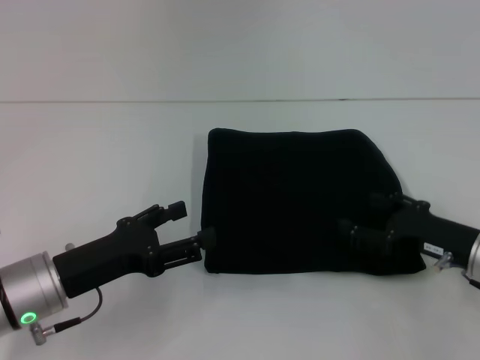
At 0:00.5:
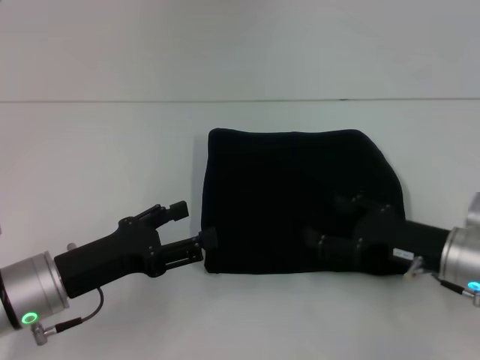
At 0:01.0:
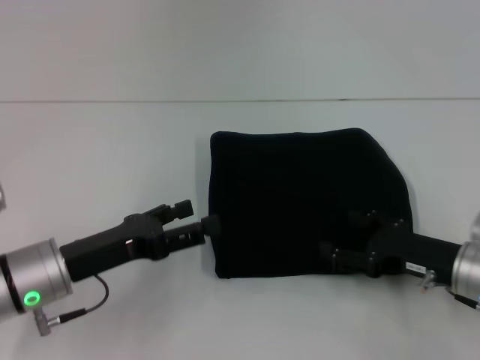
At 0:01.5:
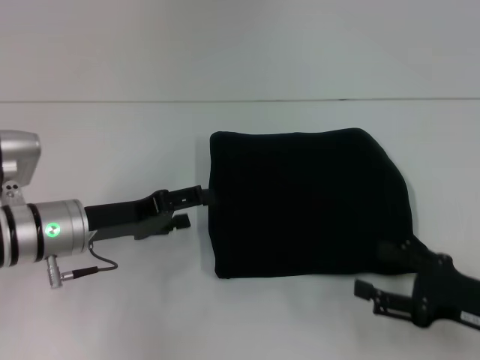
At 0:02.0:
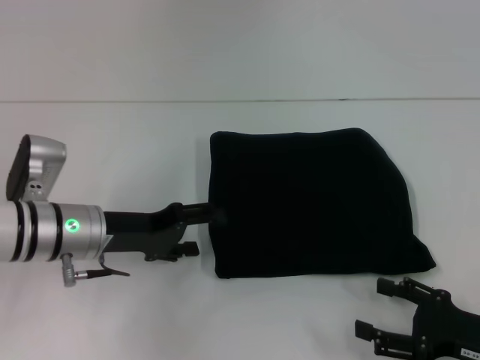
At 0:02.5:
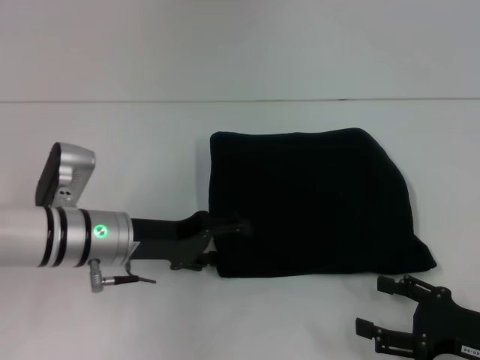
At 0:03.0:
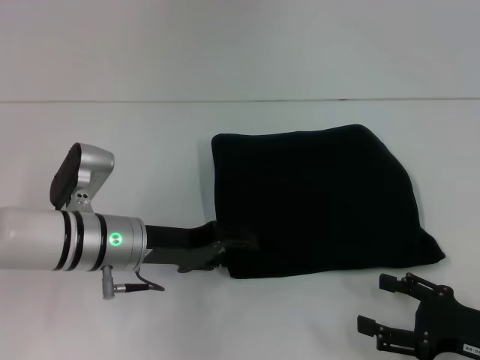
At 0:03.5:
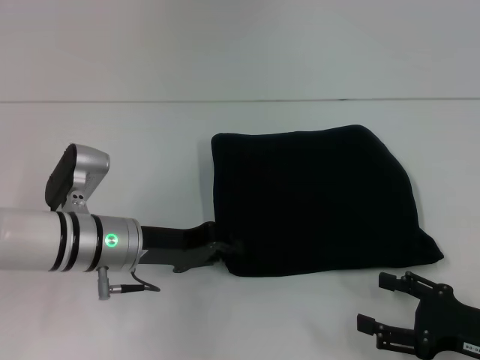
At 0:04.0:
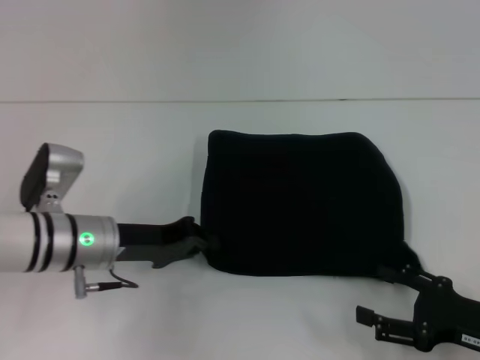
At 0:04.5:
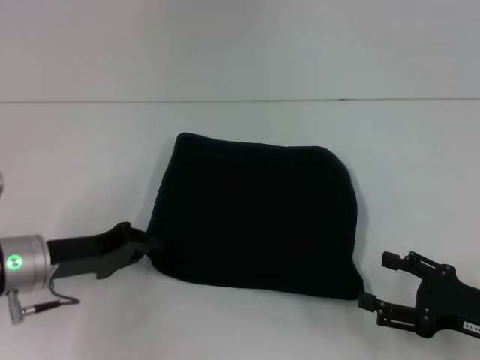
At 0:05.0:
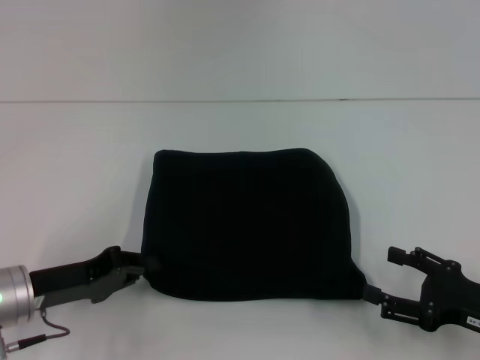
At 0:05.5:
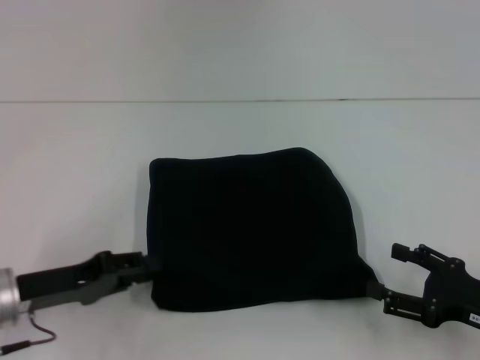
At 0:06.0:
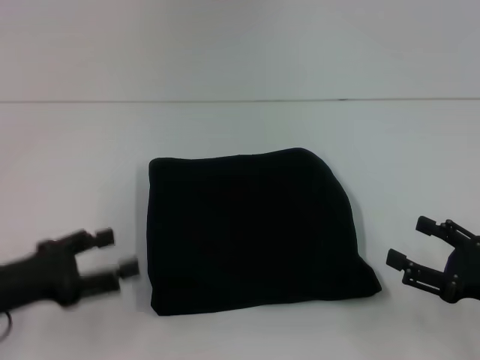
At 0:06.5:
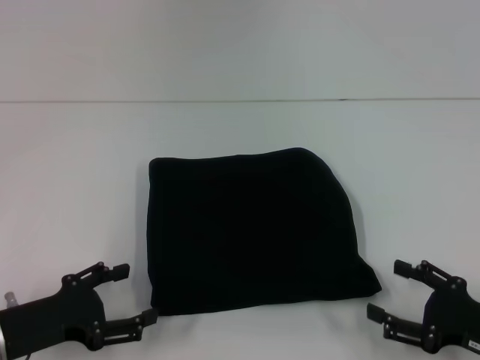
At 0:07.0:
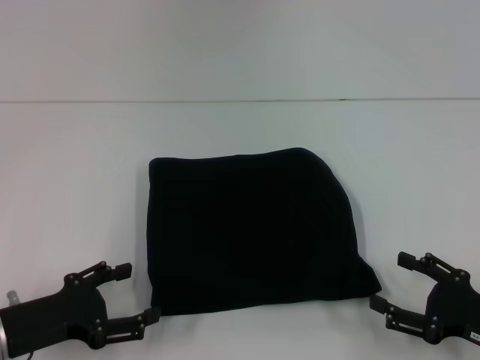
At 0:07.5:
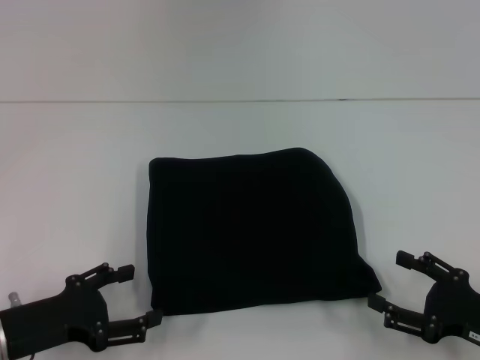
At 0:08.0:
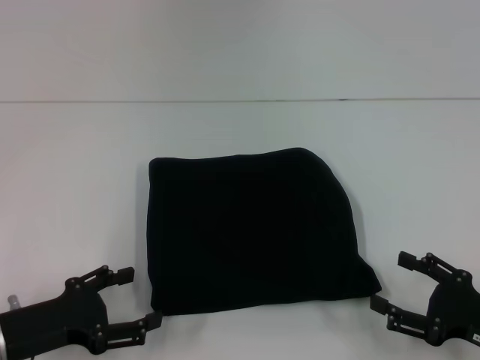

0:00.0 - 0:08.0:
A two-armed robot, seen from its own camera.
0:00.0 - 0:02.0: The right gripper travels backward by approximately 10 cm. Meanwhile the left gripper heads forward, covering roughly 10 cm.
0:02.0 - 0:04.0: The left gripper closes up.
0:04.0 - 0:06.0: The left gripper goes roughly 15 cm to the left and backward, and opens.
0:06.0 - 0:08.0: The left gripper shifts by about 5 cm, and opens.

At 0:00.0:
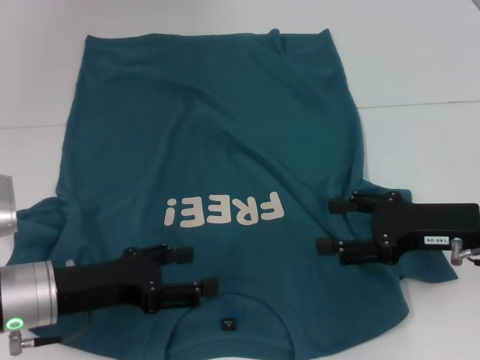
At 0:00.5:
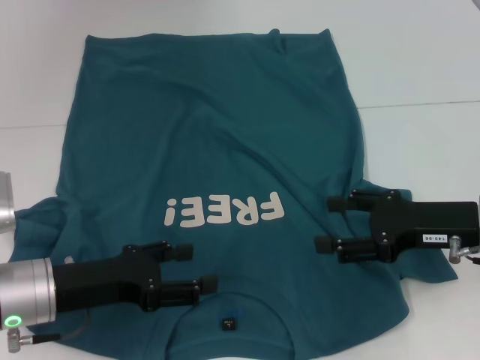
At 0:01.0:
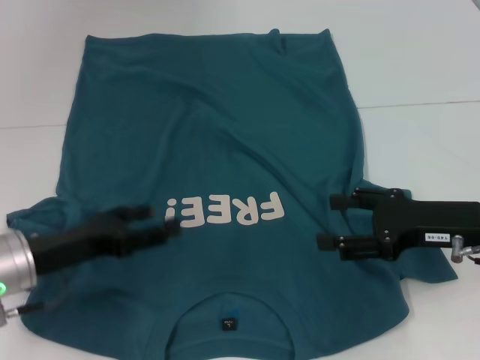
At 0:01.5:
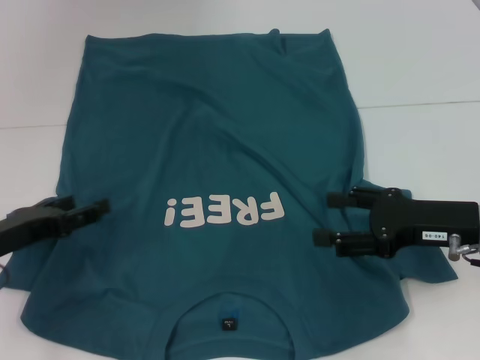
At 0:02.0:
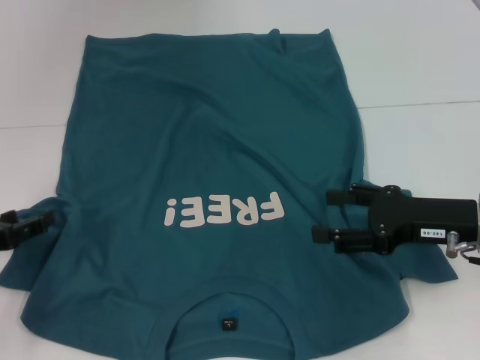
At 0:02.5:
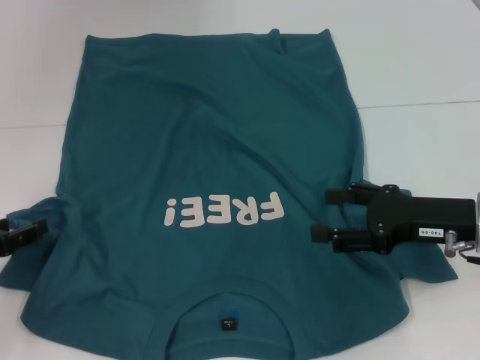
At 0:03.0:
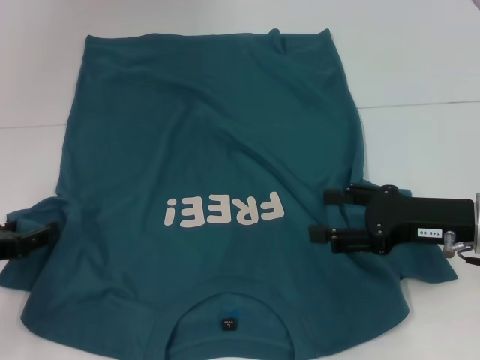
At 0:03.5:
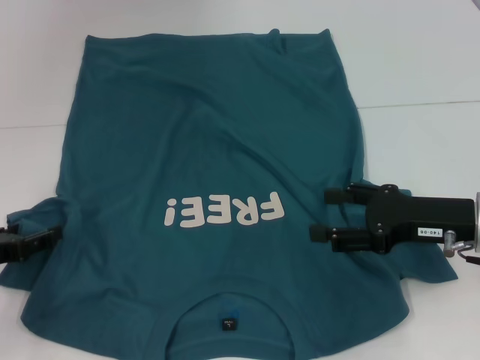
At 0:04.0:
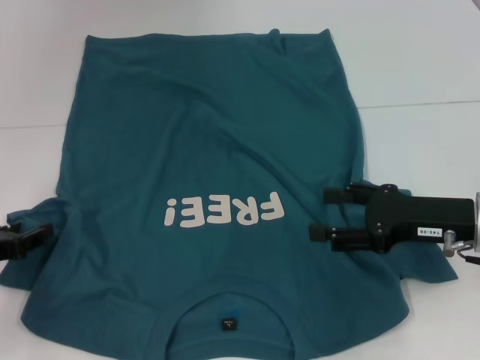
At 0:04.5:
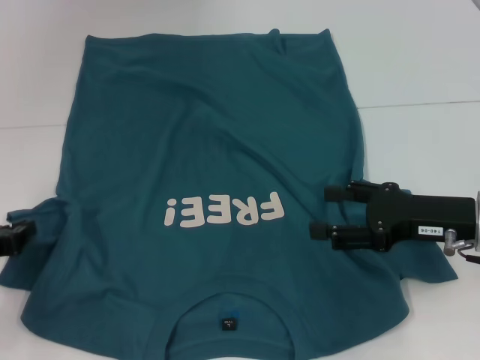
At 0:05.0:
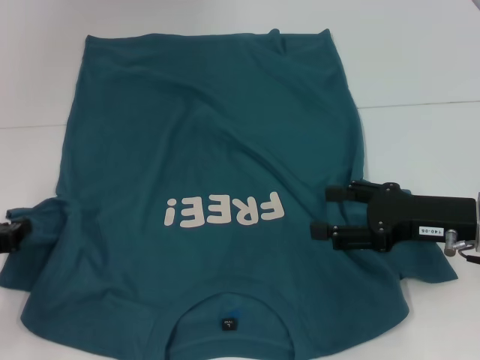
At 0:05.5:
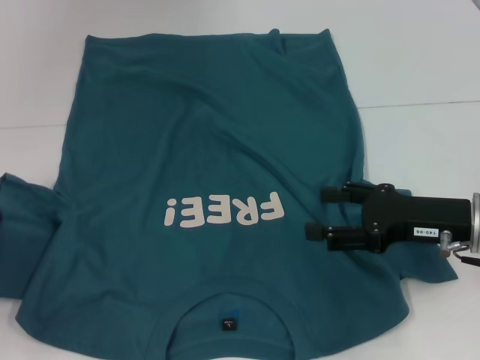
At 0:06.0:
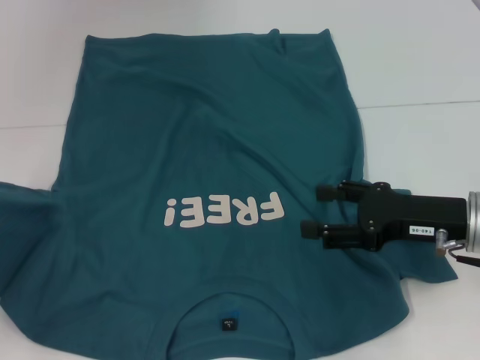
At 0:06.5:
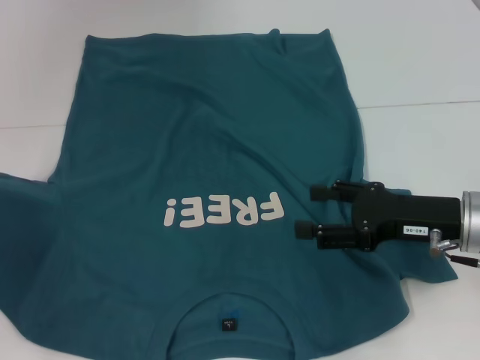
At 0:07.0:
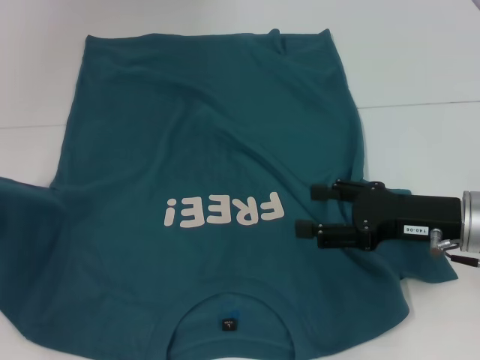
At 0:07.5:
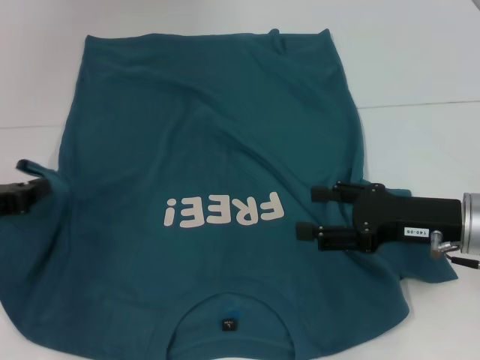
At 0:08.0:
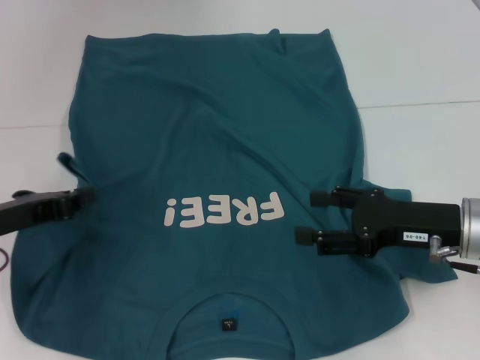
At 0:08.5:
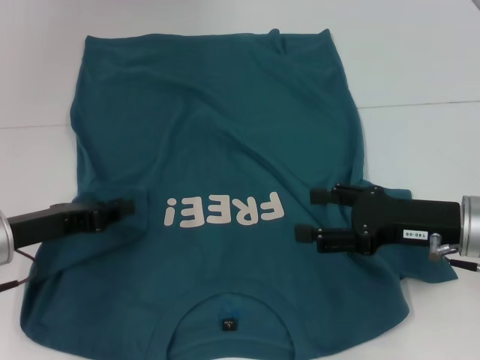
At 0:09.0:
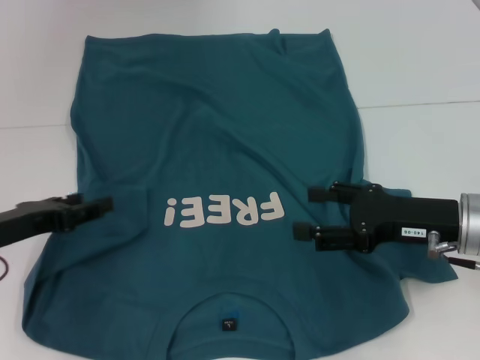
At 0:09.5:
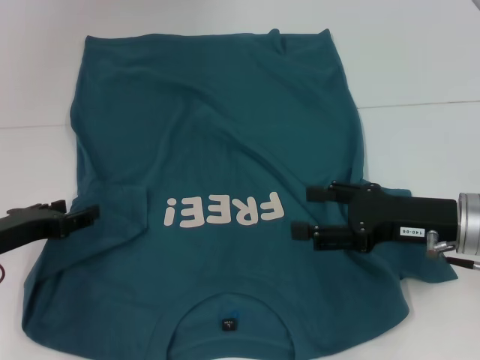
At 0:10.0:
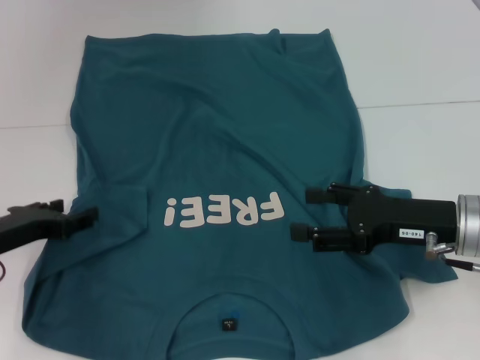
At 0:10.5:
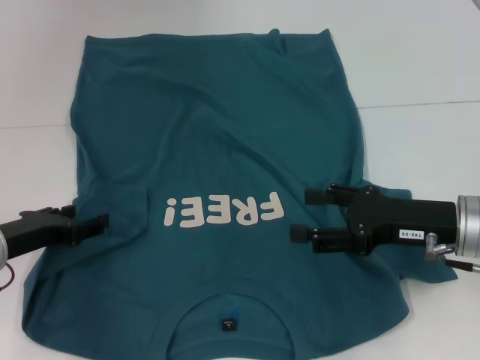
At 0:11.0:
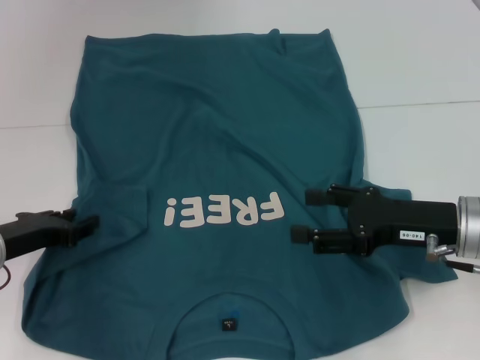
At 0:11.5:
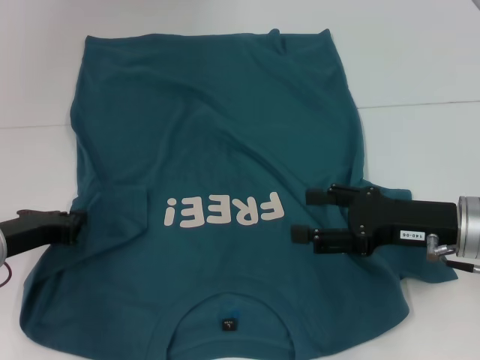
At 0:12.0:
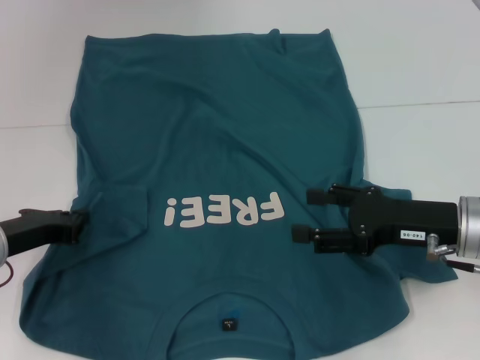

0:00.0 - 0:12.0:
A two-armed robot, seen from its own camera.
0:00.0 - 0:02.0: The left gripper goes some 10 cm to the left.
0:02.0 - 0:04.0: The grippers stay close to where they were, moving slightly.
0:04.0 - 0:06.0: The left gripper closes.
0:06.0 - 0:08.0: The left gripper travels to the right by some 10 cm.
0:08.0 - 0:10.0: The left gripper opens up.
0:10.0 - 0:12.0: The left gripper closes up.

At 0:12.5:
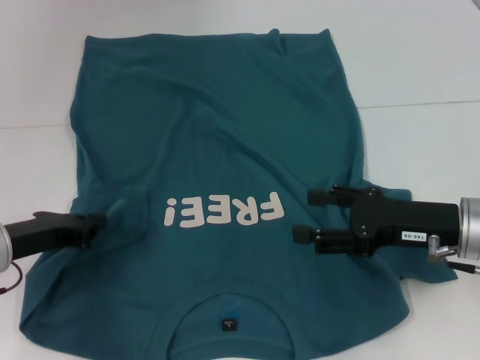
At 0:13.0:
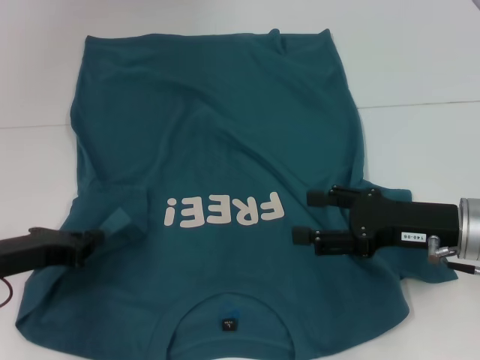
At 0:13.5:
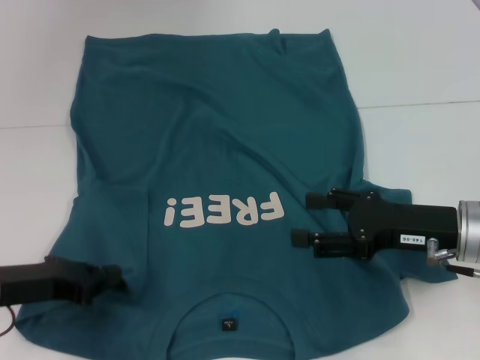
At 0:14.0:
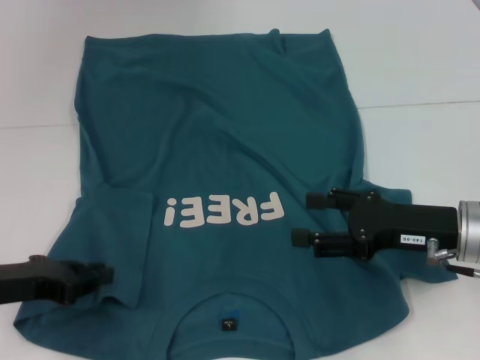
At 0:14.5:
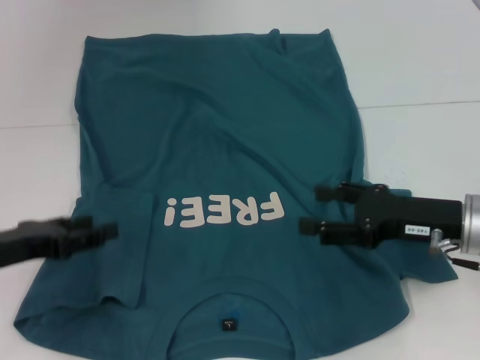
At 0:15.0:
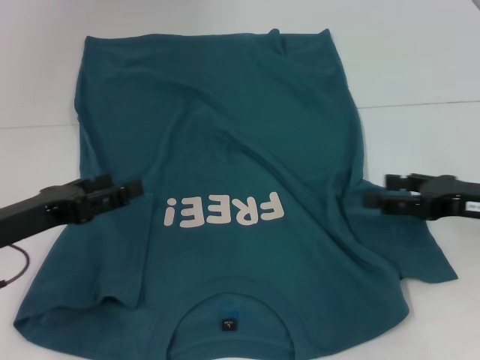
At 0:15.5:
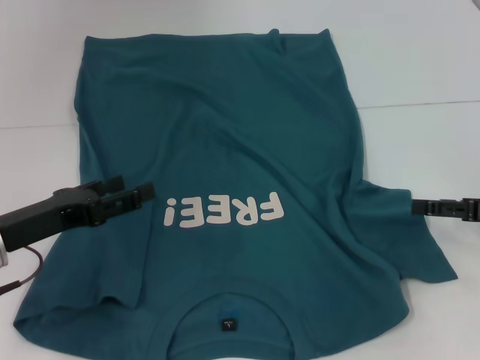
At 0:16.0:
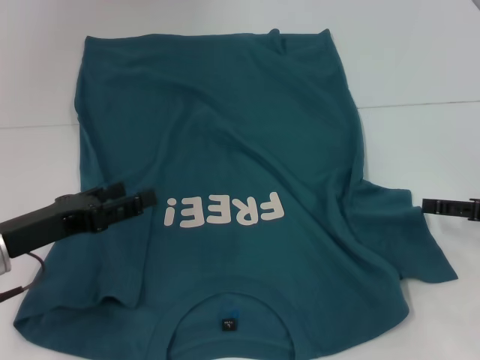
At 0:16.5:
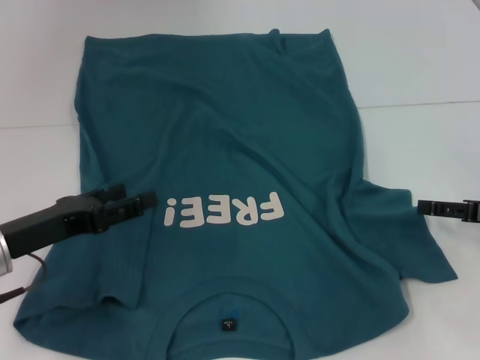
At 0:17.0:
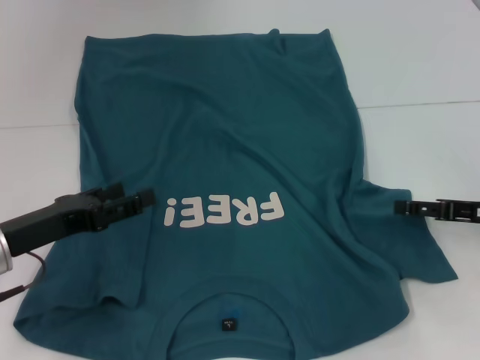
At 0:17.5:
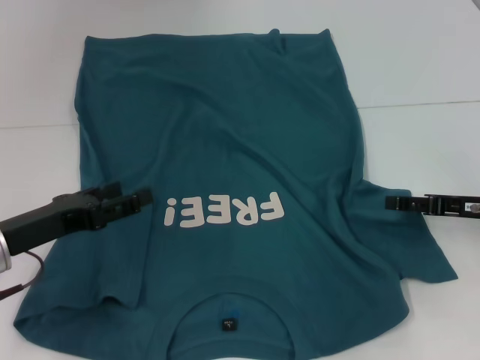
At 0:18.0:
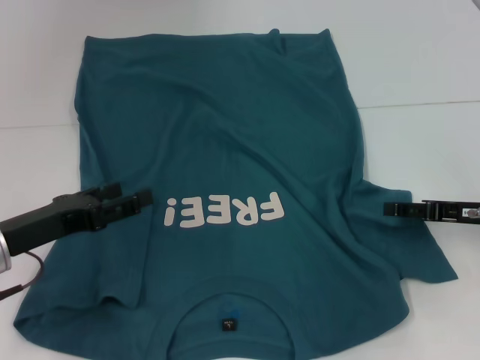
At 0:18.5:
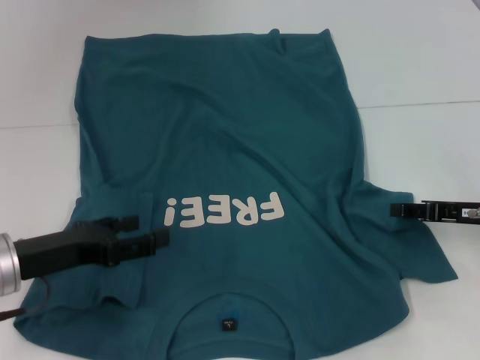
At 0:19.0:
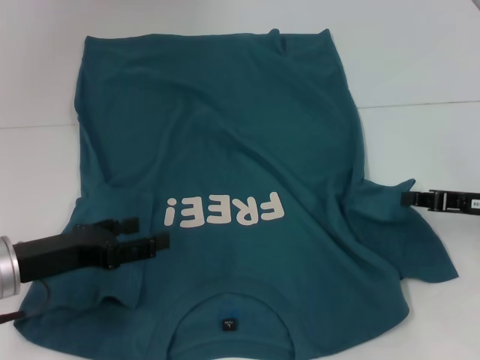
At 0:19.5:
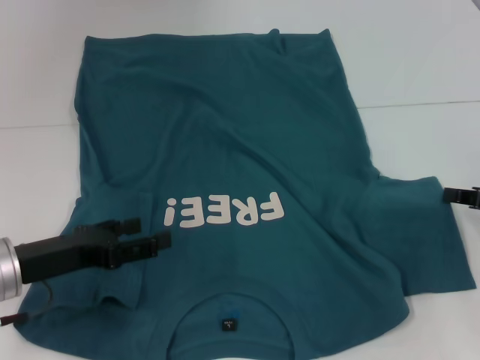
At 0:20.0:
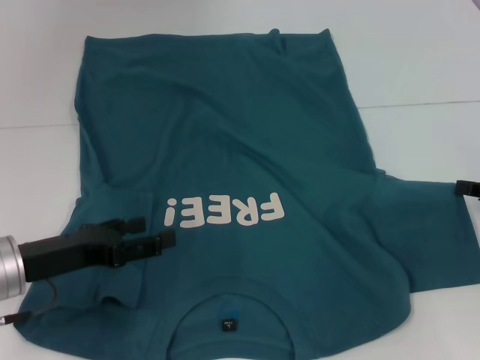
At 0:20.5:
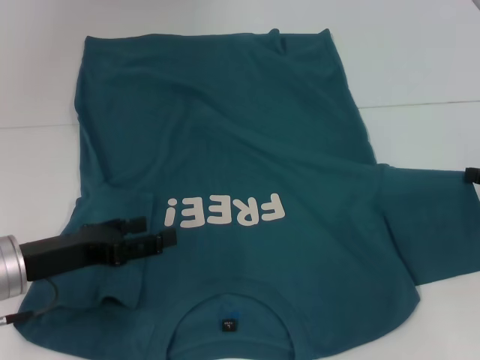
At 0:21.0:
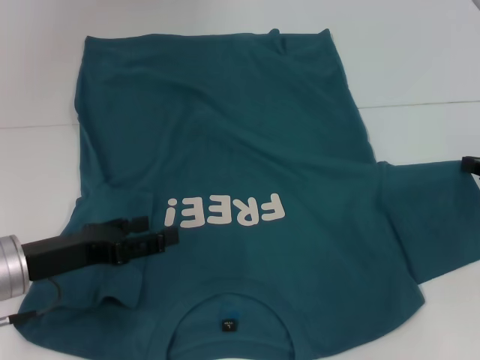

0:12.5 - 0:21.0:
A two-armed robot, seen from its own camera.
0:12.5 - 0:14.5: The left gripper opens up.
0:14.5 - 0:16.5: The right gripper heads to the right, covering roughly 10 cm. The left gripper opens its fingers.
0:16.5 - 0:19.0: The right gripper closes up.
0:19.0 - 0:21.0: The right gripper ends up about 5 cm from where it was.
